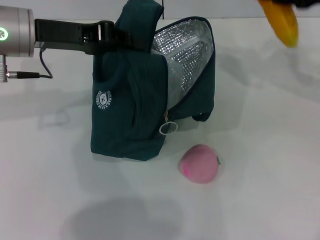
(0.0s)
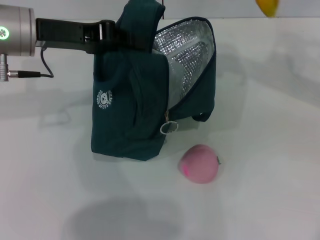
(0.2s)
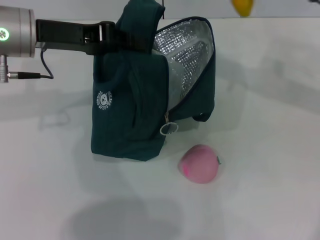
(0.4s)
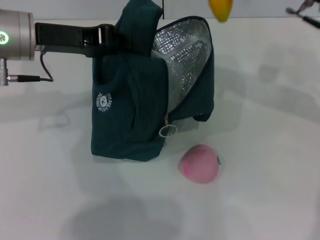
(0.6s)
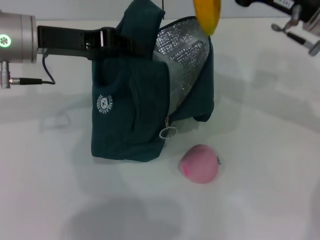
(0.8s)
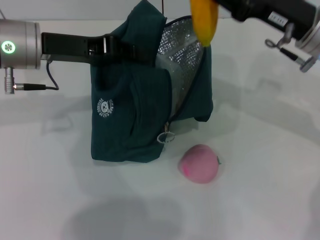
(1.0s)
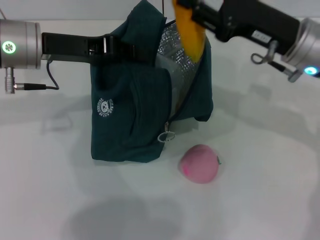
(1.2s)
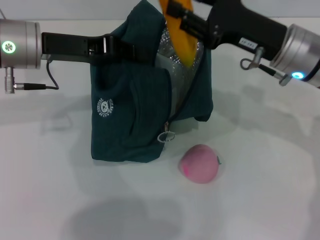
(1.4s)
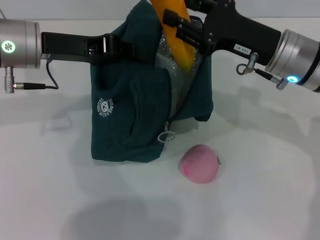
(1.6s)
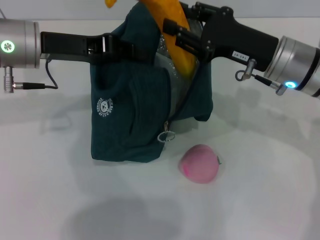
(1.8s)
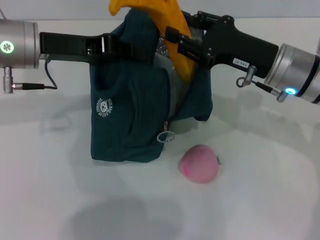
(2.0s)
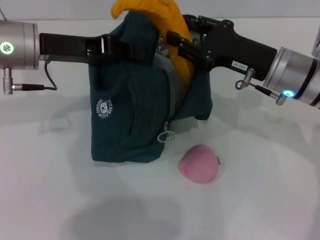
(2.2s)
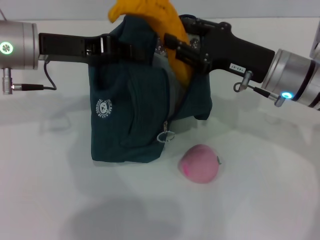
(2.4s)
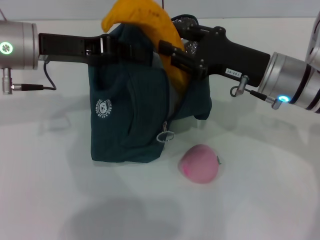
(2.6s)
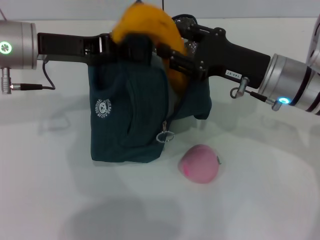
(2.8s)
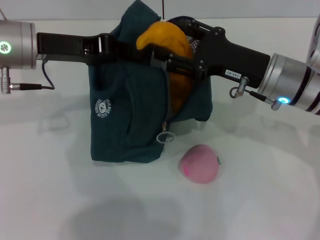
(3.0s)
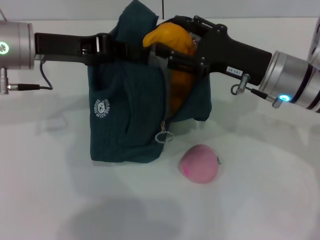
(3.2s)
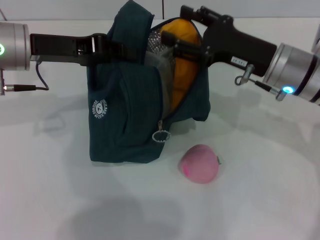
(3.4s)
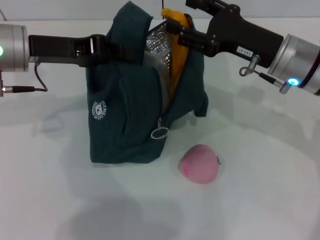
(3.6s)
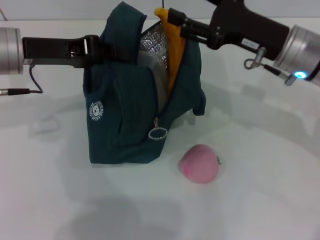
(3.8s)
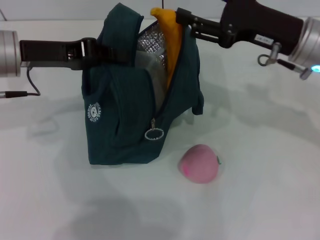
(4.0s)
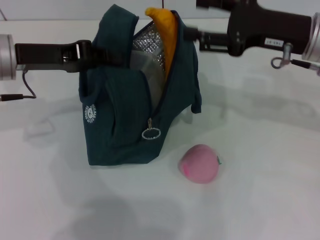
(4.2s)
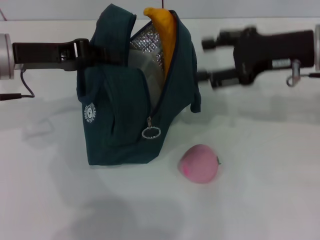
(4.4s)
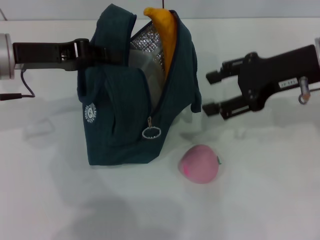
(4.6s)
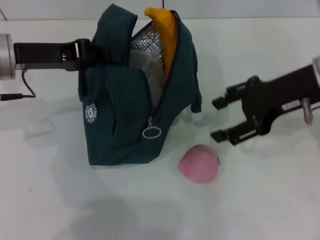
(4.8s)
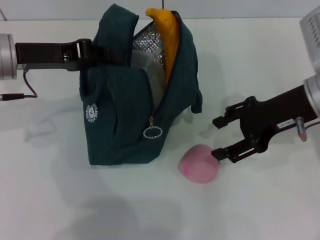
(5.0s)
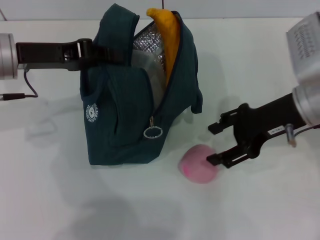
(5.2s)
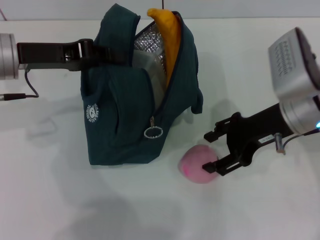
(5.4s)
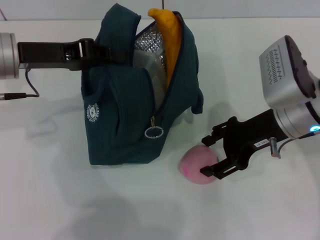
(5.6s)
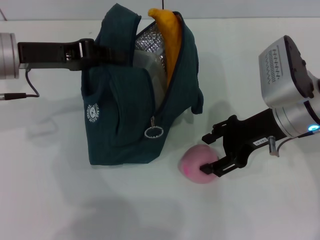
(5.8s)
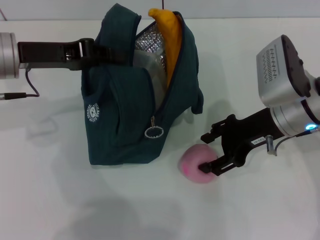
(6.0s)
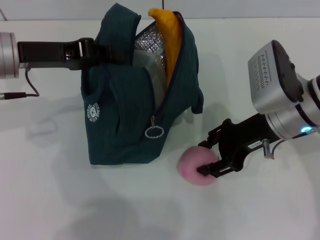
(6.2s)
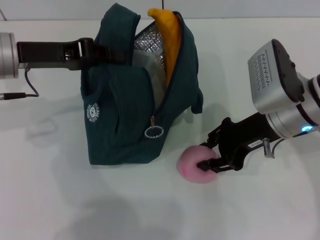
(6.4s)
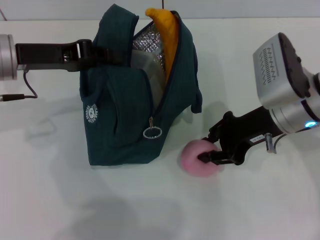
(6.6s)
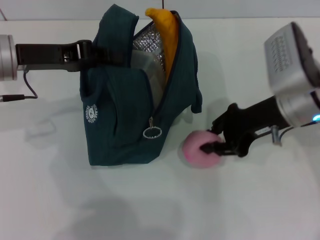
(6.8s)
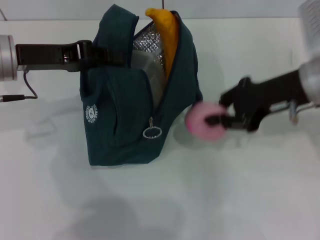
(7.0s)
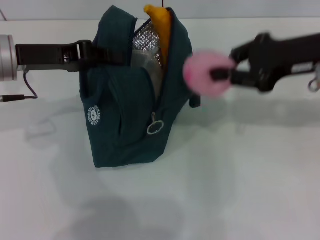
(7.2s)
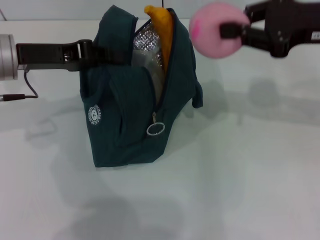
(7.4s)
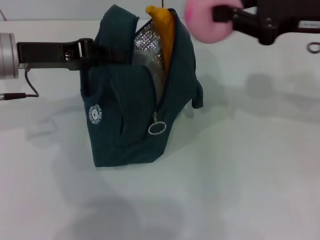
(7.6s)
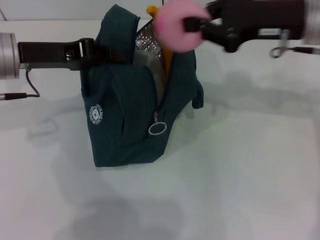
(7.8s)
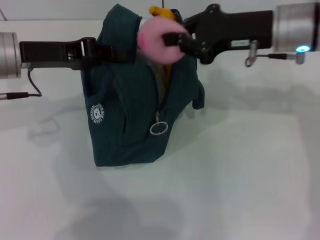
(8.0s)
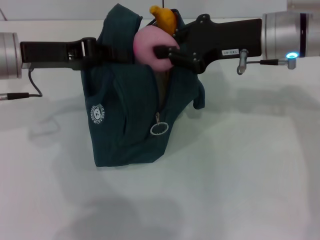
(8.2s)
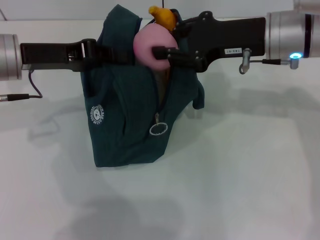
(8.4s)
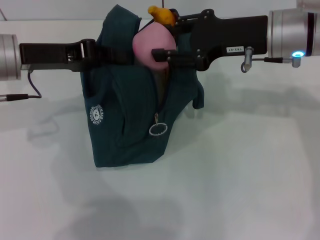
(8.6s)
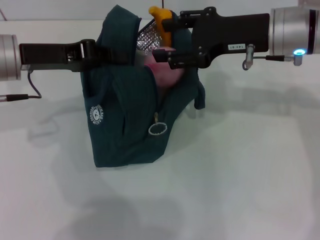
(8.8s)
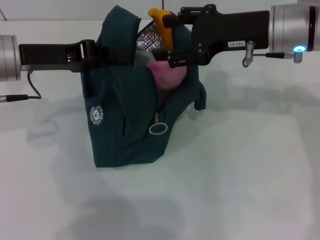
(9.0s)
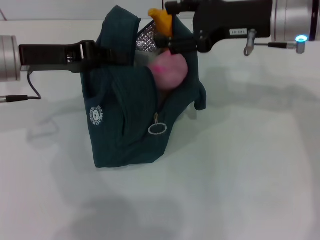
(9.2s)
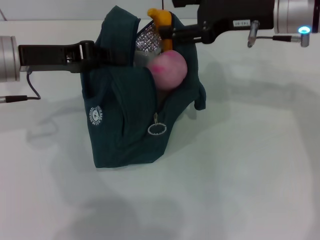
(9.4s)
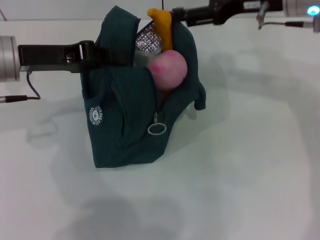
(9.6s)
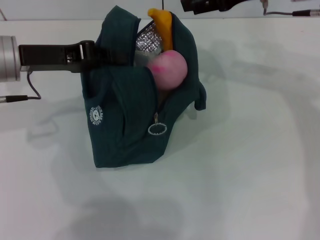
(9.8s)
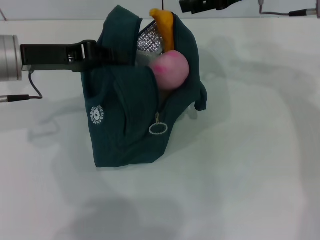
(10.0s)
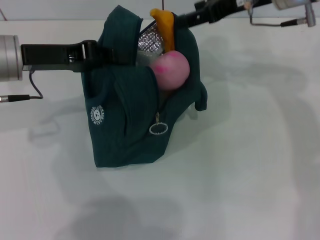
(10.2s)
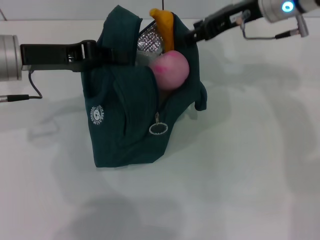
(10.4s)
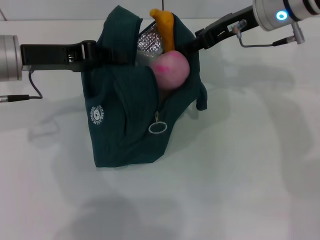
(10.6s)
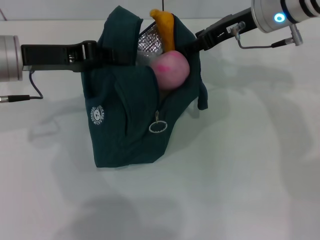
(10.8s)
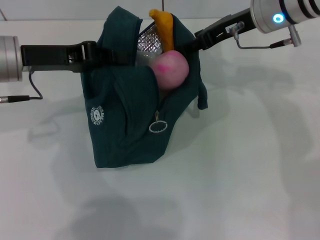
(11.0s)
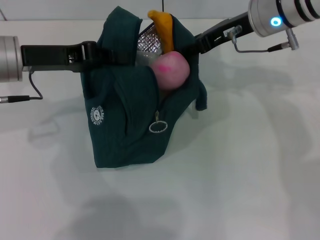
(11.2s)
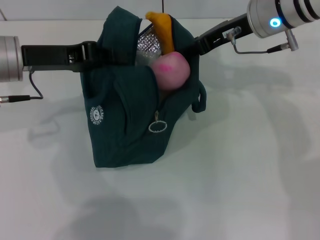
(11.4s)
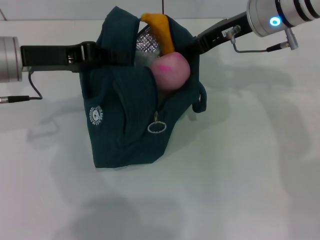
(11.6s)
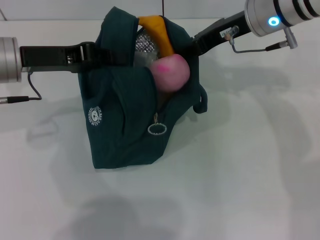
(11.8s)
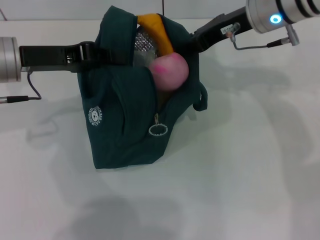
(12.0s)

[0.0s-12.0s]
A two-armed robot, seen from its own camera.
Step, 0.0s to 3.6s: Put the banana into the lunch bag with your right hand.
Step, 3.8s to 6.4s: Grab the peach with your right hand.
0.0s to 1.6s: The right gripper moves to the left and downward, approximately 15 cm.
1.6s to 3.0s: The grippers make only small movements.
3.0s to 4.4s: The right gripper is displaced upward and to the right by roughly 10 cm.
4.4s to 6.0s: The right gripper shifts about 5 cm downward.
6.0s to 7.6s: The right gripper goes roughly 10 cm upward and to the right, and closes its fingers.
7.6s to 9.0s: The right gripper goes approximately 5 cm to the left, and opens.
9.0s to 10.4s: The right gripper is displaced forward by approximately 5 cm.
10.4s to 12.0s: The right gripper closes its fingers.

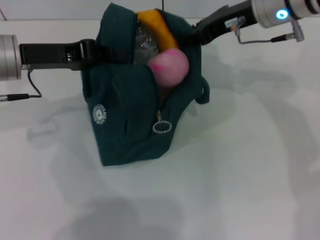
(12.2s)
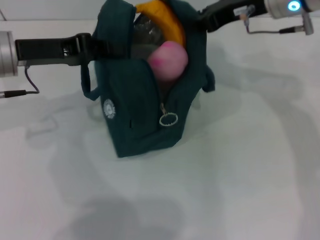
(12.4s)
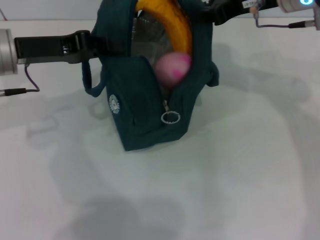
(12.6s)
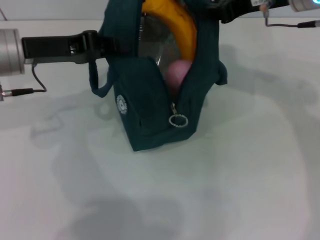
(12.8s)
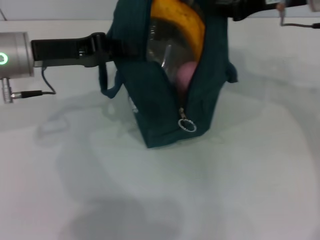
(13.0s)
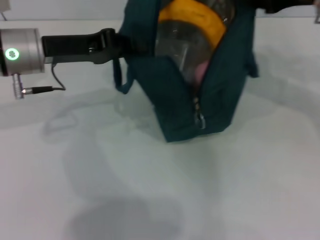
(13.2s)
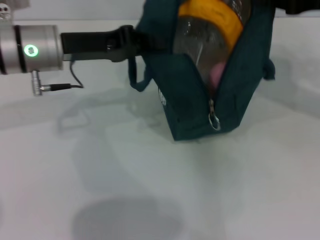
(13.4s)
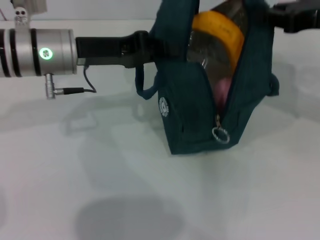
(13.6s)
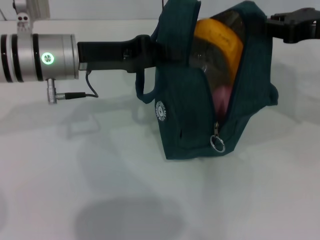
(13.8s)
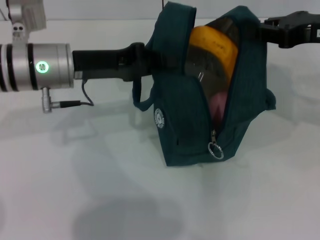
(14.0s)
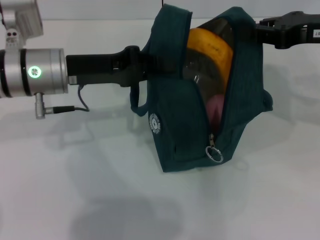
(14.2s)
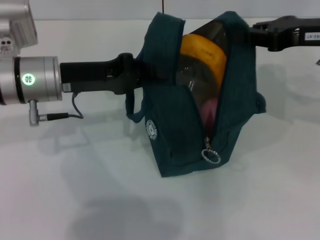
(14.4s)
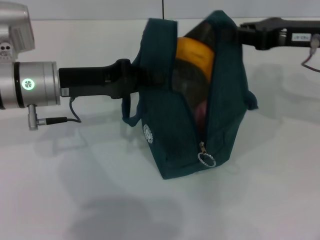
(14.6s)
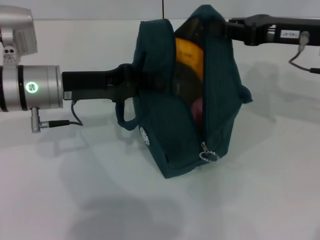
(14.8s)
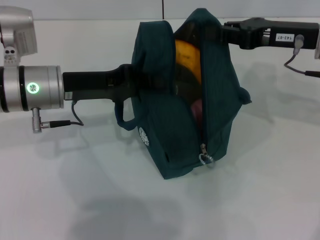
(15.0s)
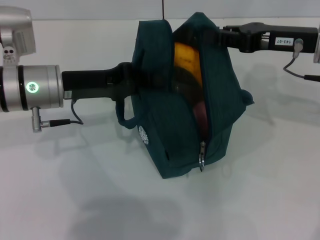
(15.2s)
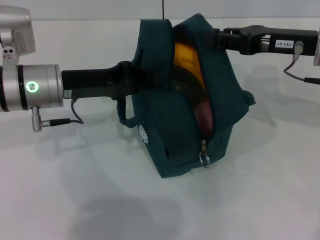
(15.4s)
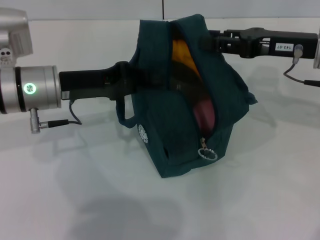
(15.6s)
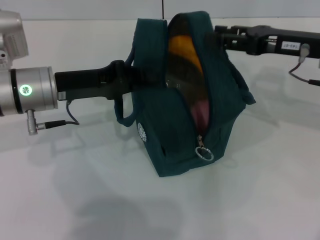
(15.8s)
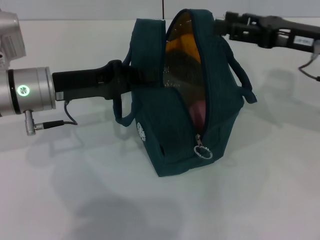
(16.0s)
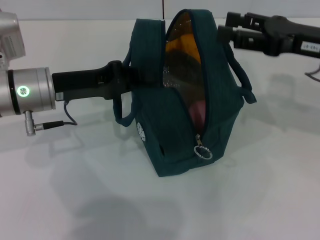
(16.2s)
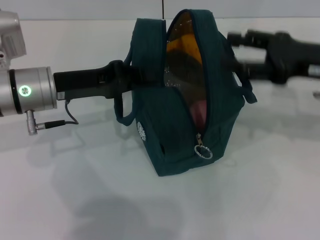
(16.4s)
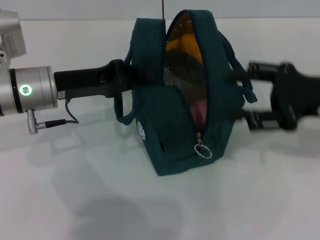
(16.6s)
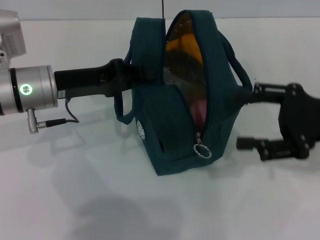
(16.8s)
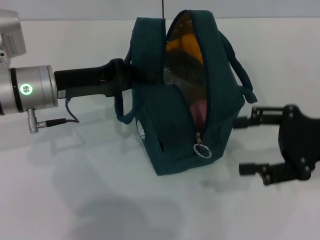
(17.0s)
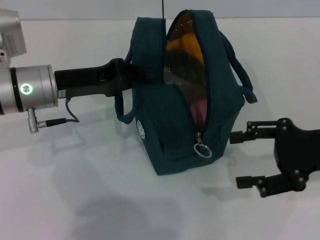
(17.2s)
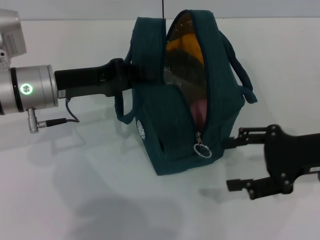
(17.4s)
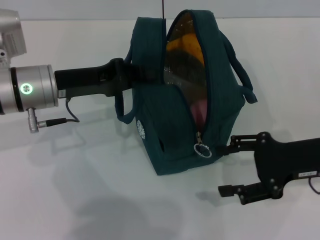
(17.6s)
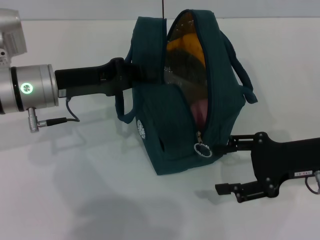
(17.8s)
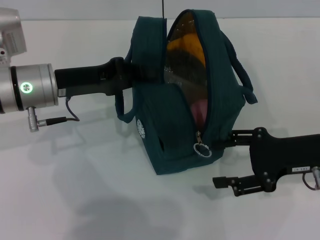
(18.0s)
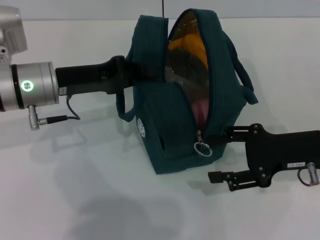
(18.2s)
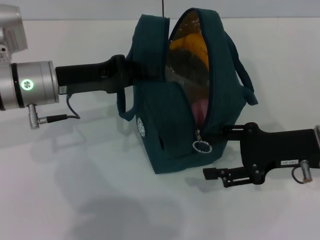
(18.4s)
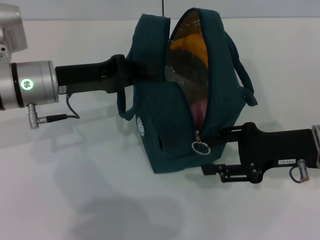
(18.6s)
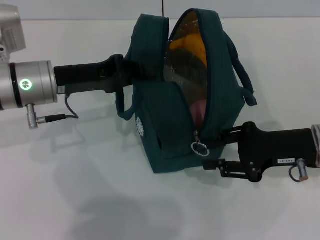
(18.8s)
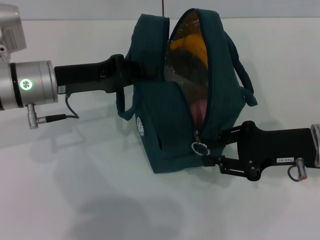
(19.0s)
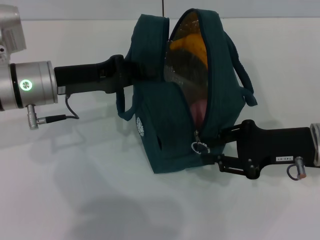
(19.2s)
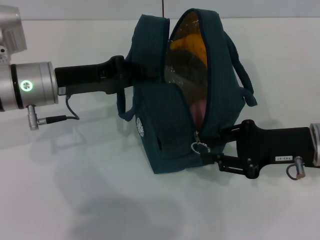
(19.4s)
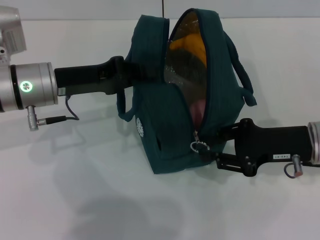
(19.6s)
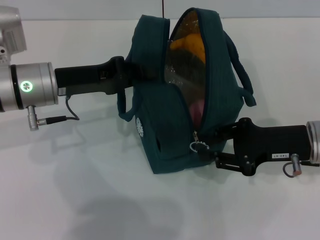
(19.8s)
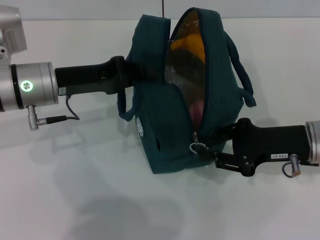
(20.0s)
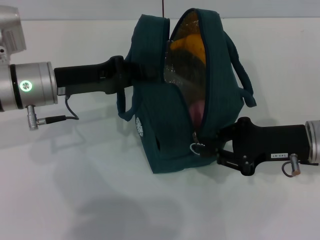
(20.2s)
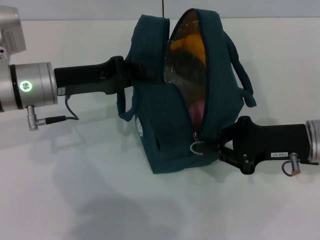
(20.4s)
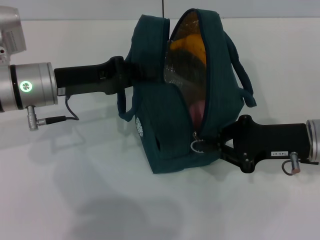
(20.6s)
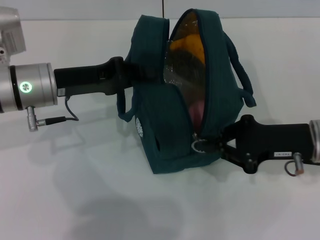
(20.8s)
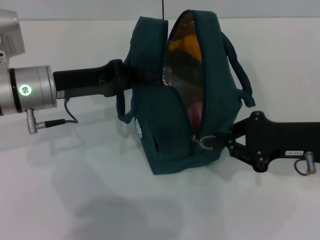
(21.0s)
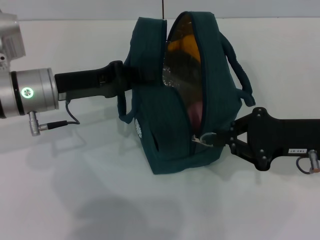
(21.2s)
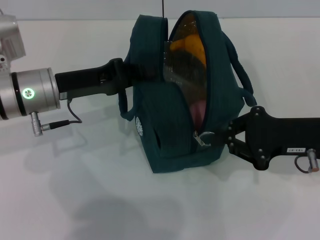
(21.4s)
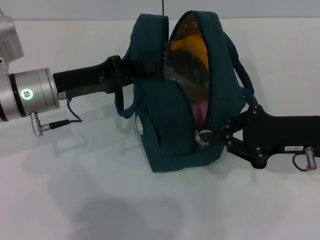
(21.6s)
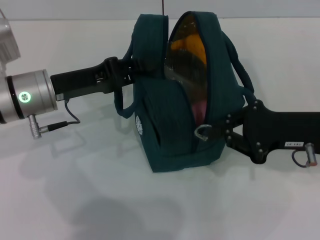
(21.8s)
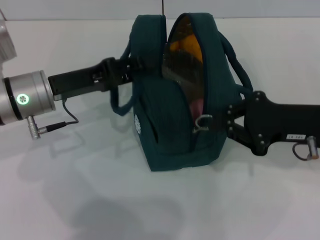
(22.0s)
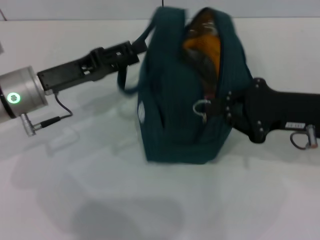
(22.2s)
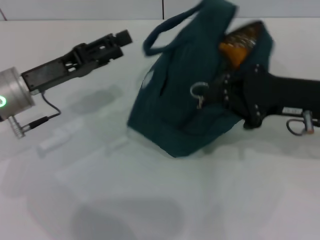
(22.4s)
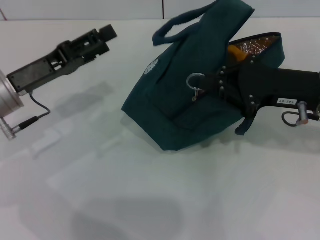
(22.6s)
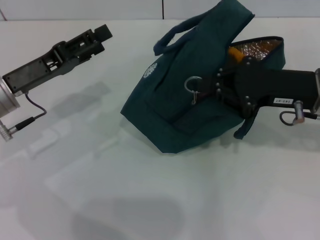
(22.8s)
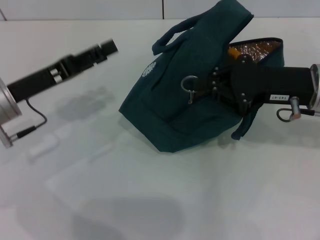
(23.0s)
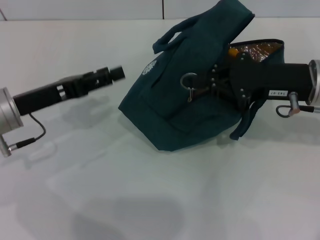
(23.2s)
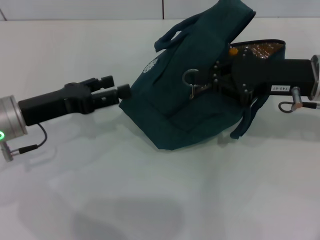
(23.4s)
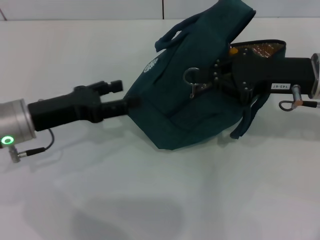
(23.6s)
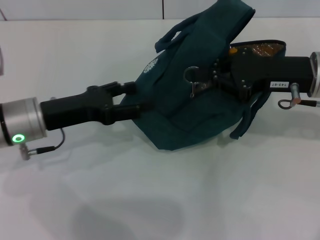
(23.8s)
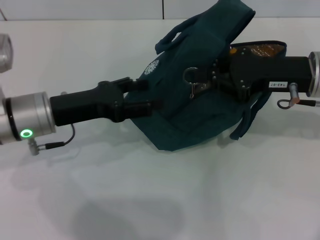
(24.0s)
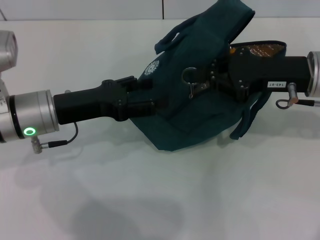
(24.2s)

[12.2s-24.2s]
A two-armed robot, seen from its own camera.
Step, 12.2s to 15.8s: Hold the lunch bag with your right hand.
Step, 16.0s to 22.0s: Hold the lunch bag with your left hand.
12.2s to 13.8s: The left gripper heads to the right, covering approximately 5 cm. The right gripper is displaced to the right and backward by about 15 cm.
13.8s to 15.2s: The right gripper moves roughly 5 cm.
15.2s to 16.6s: The right gripper goes approximately 5 cm backward, and opens its fingers.
16.6s to 18.2s: The right gripper goes approximately 5 cm downward.
18.2s to 19.8s: The right gripper closes up.
19.8s to 21.2s: The grippers stay close to where they were, moving slightly.
21.2s to 22.6s: The left gripper shifts by some 5 cm, and opens. Meanwhile the right gripper changes place by approximately 5 cm.
